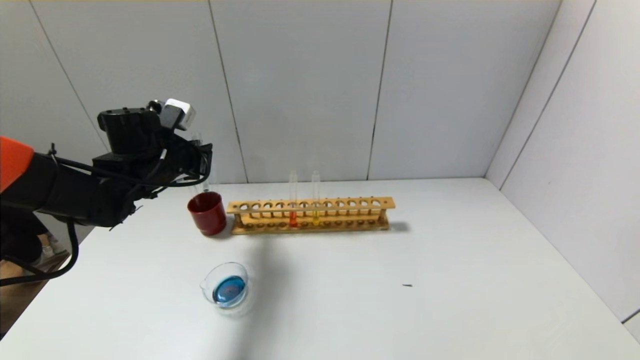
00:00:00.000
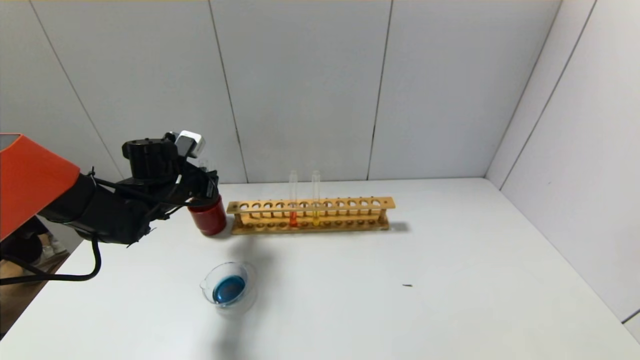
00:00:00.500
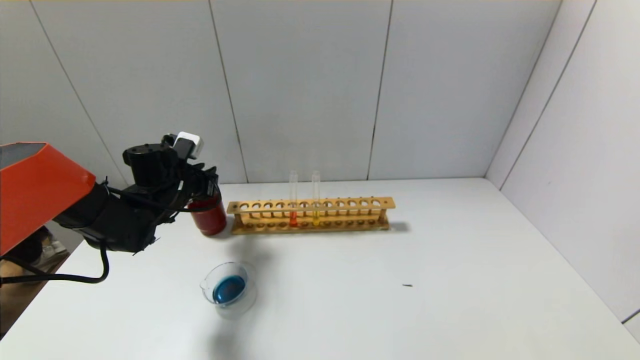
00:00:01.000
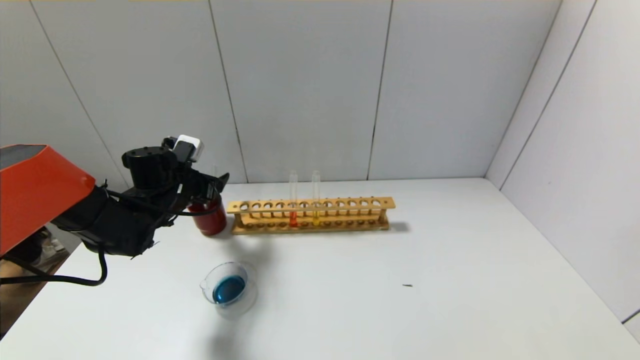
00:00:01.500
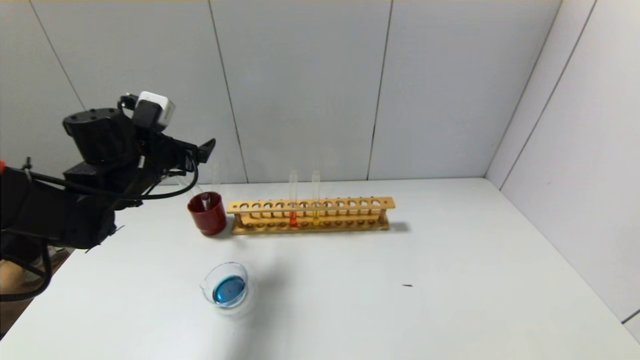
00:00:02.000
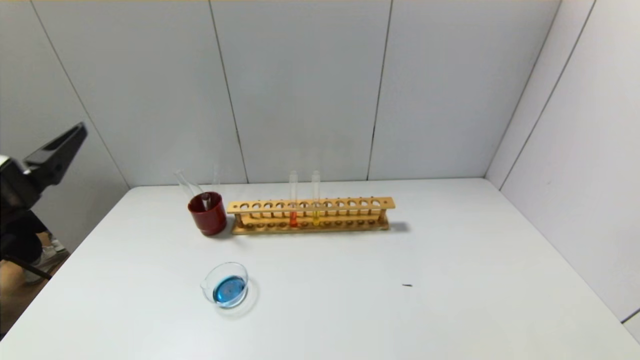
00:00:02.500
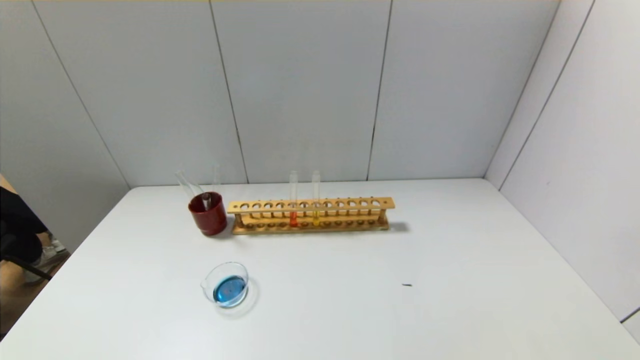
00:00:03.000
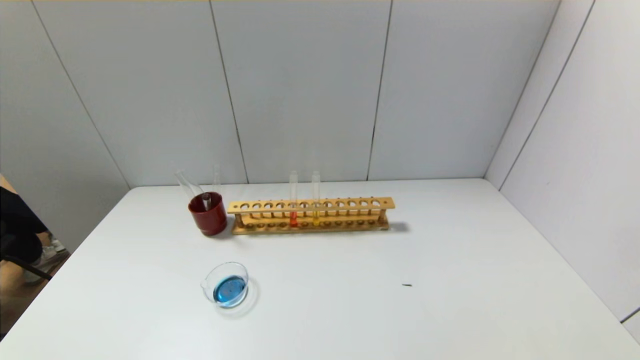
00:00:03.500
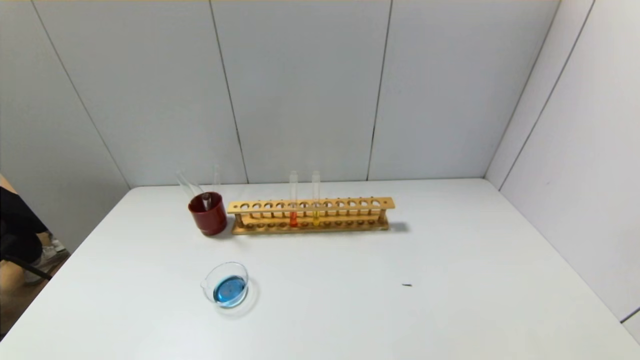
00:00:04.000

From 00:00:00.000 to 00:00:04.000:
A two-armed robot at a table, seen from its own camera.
From 00:00:00.000 to 00:00:02.000: The left gripper reaches approximately 5 cm downward, then returns, and opens.
From 00:00:02.000 to 00:00:04.000: The left gripper is displaced backward by some 40 cm.
